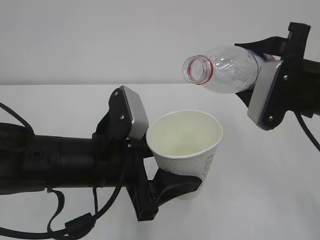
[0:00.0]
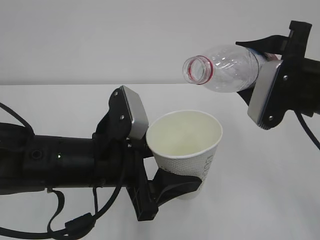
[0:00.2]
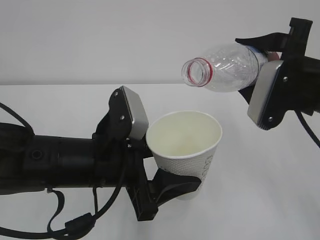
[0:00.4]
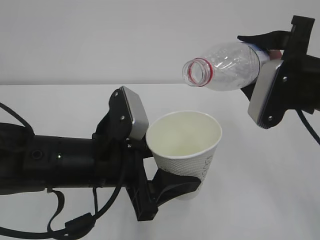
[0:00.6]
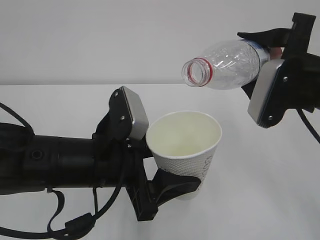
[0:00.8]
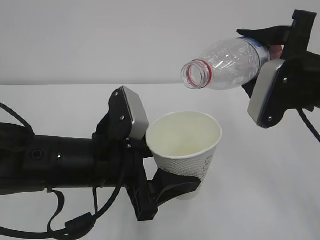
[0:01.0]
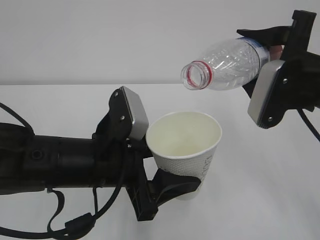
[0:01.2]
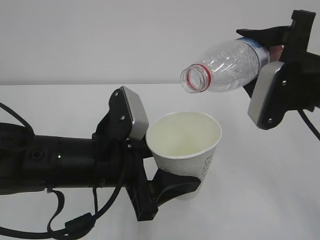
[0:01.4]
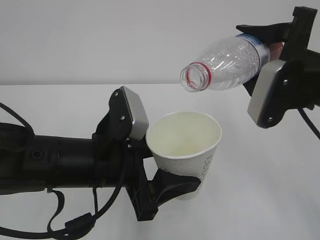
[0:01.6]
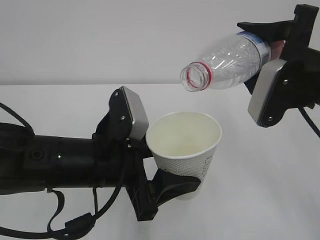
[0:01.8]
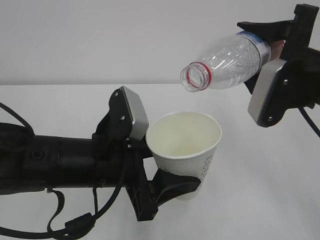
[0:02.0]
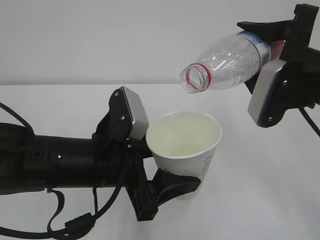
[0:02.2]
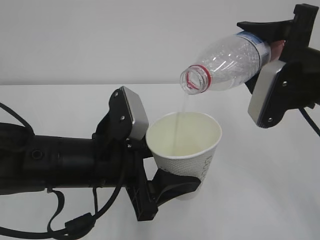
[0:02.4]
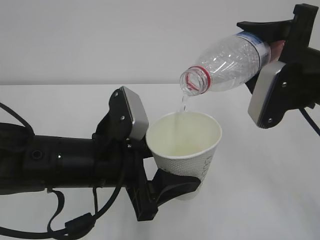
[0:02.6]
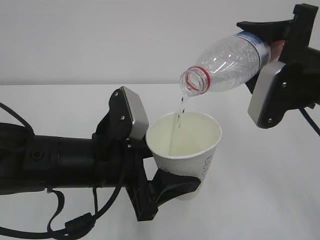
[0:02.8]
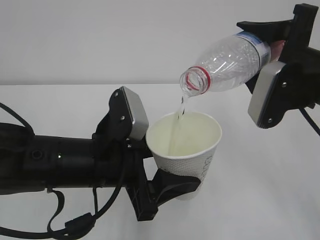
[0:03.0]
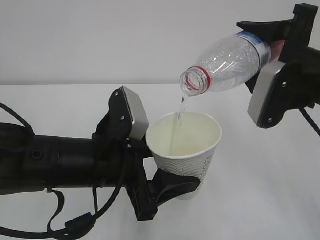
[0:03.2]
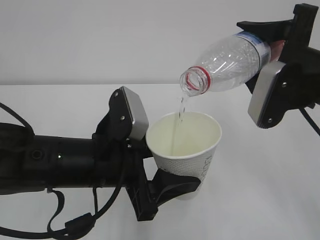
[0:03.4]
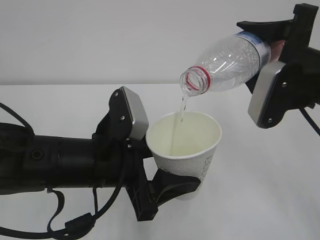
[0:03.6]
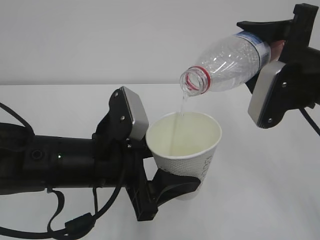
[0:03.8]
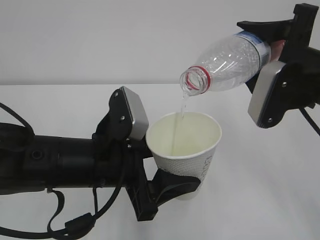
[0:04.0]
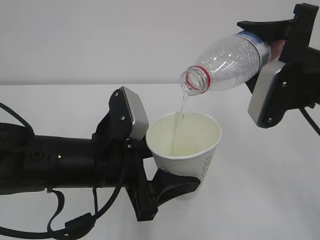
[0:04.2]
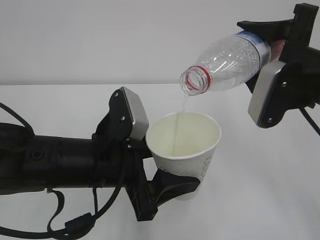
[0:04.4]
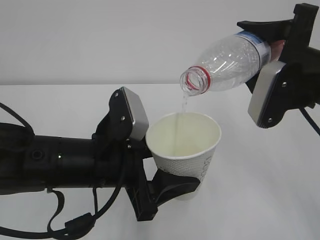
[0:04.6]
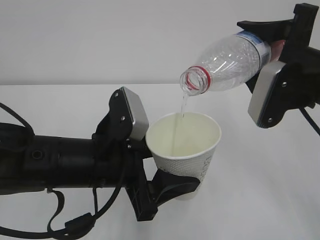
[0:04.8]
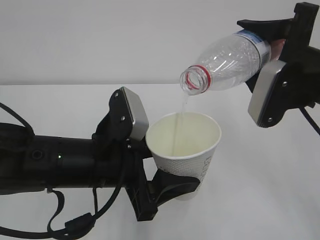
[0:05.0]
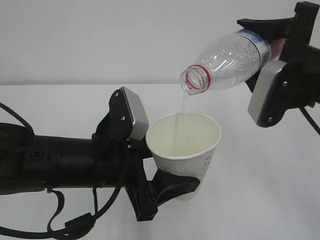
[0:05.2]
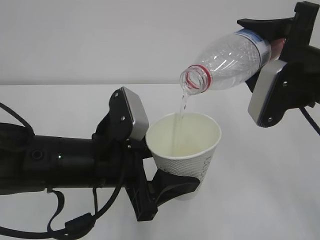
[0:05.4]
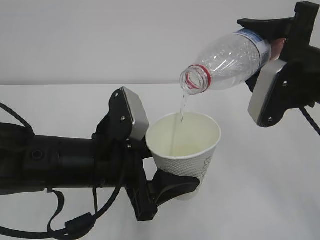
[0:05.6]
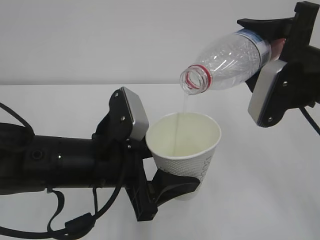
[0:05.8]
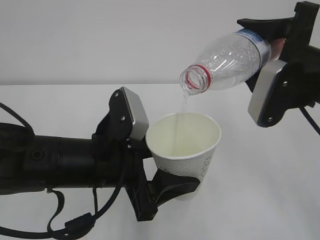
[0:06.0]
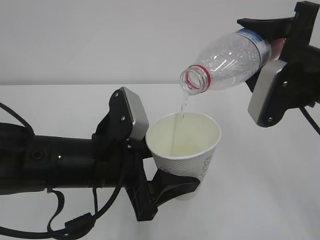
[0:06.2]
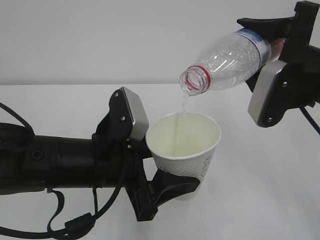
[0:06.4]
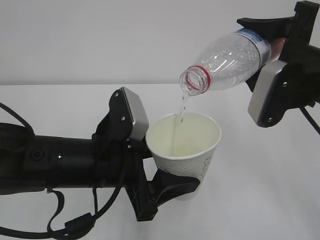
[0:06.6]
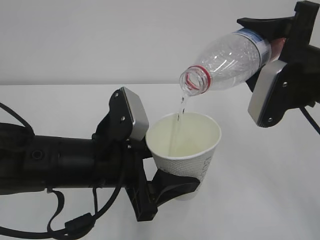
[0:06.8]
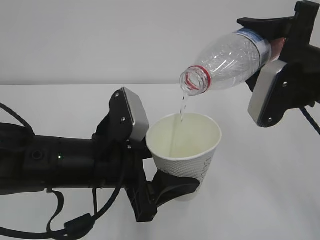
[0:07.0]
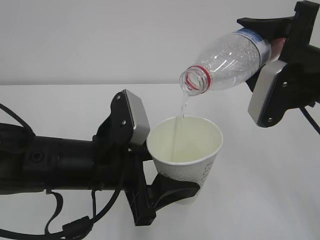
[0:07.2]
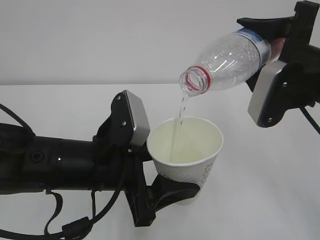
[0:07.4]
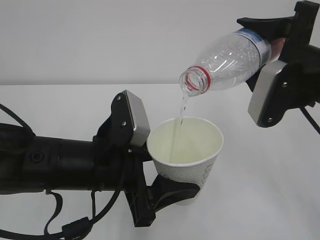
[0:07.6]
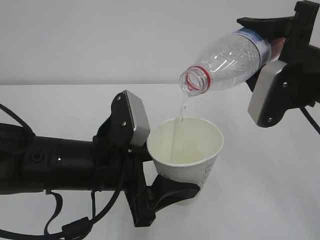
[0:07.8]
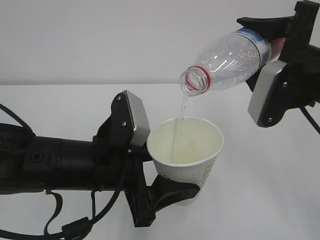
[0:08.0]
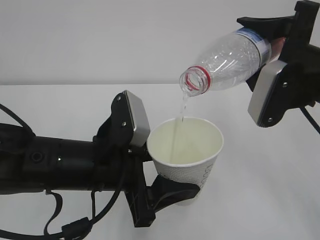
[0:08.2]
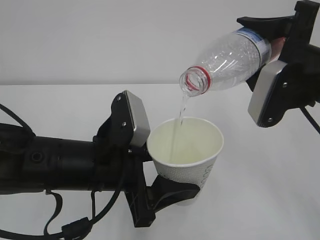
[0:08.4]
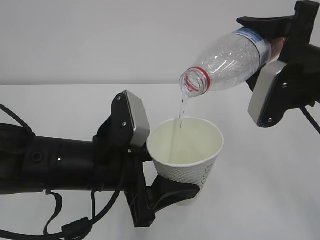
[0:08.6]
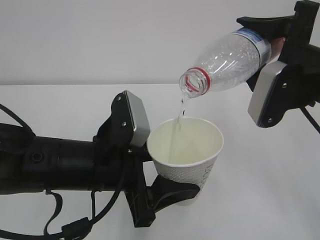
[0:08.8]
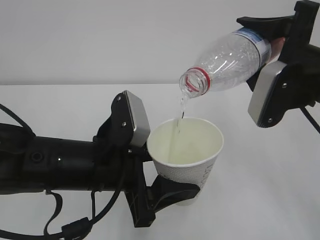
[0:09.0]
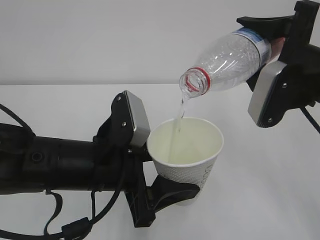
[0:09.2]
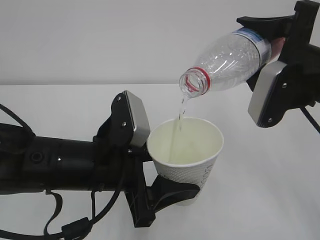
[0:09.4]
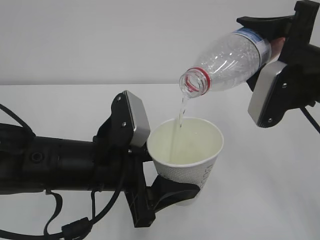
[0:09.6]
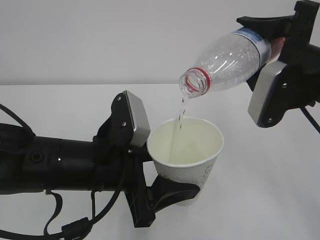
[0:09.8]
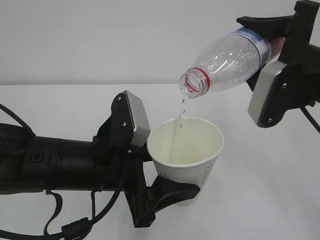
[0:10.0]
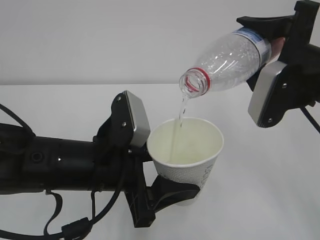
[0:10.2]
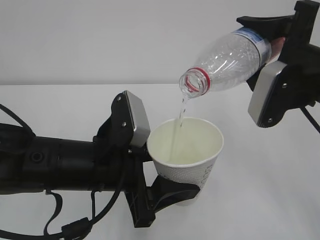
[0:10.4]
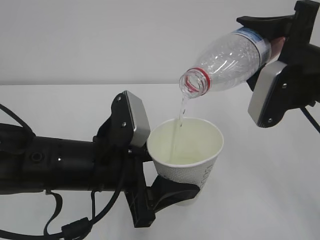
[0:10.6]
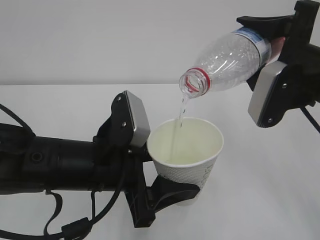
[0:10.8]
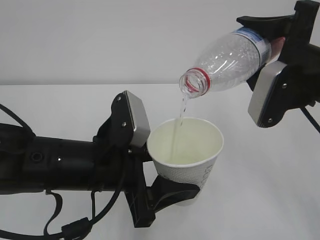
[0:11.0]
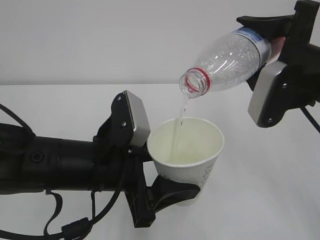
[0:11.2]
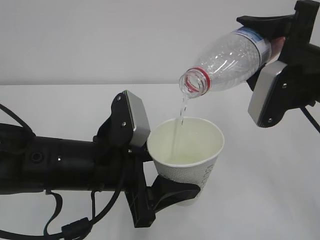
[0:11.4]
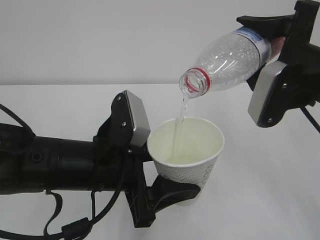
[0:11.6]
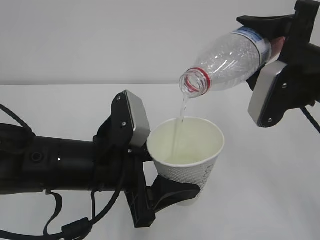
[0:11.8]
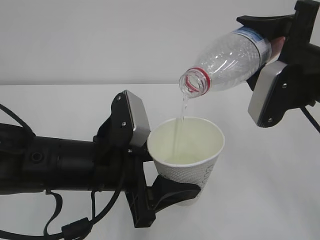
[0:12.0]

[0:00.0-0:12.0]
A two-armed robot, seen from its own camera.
0:00.0 to 0:01.6: The grippers make only small movements.
0:01.6 to 0:06.0: The two grippers keep their place.
0:06.0 to 0:12.0: Both grippers stay put.

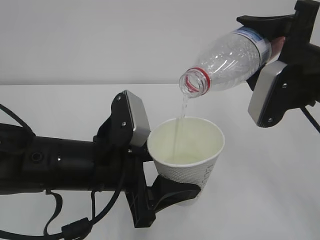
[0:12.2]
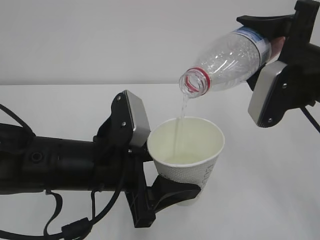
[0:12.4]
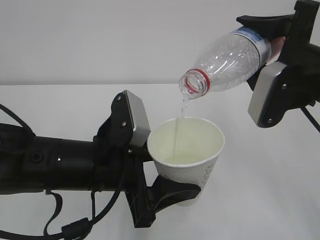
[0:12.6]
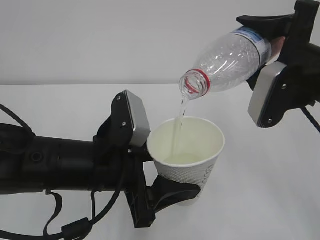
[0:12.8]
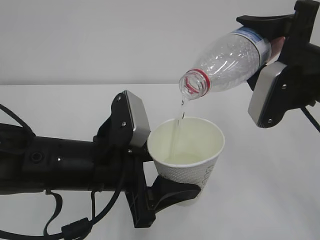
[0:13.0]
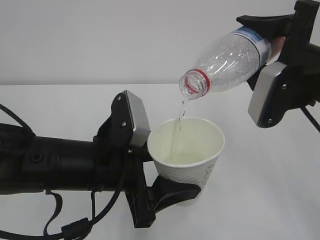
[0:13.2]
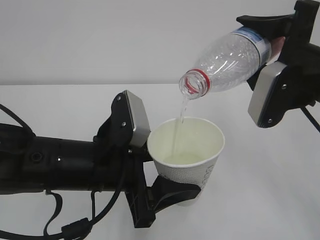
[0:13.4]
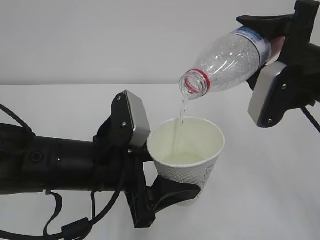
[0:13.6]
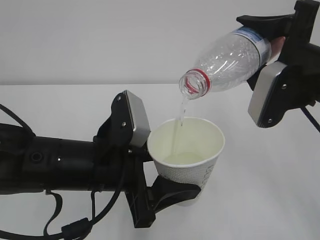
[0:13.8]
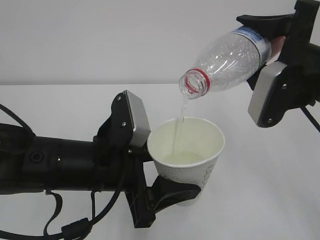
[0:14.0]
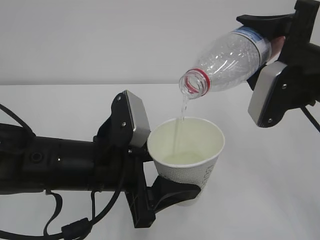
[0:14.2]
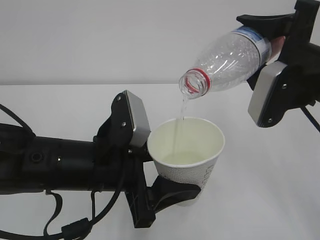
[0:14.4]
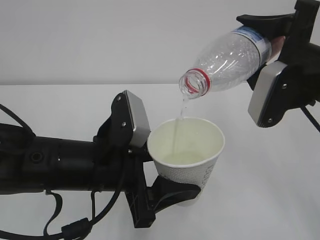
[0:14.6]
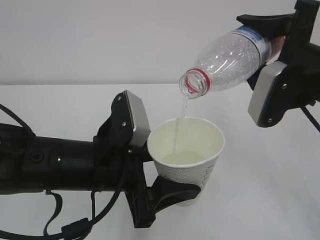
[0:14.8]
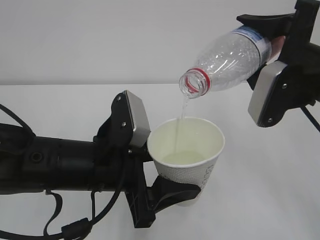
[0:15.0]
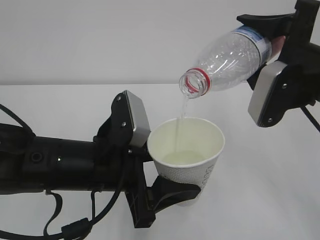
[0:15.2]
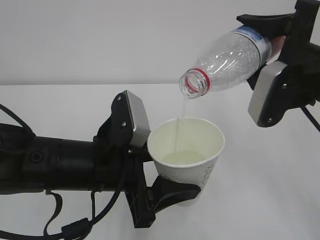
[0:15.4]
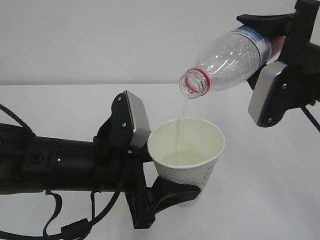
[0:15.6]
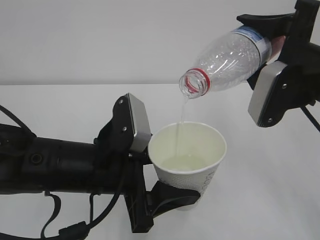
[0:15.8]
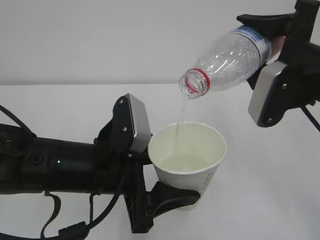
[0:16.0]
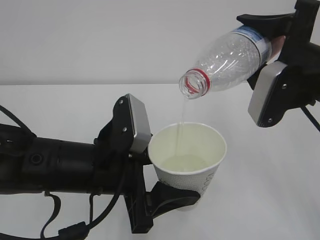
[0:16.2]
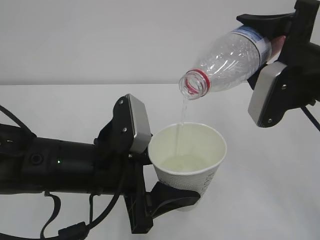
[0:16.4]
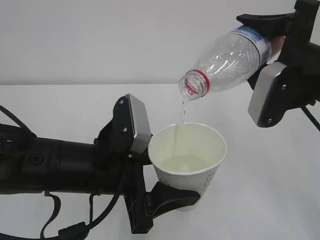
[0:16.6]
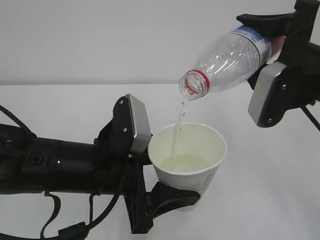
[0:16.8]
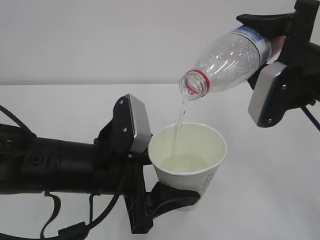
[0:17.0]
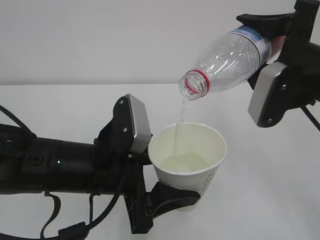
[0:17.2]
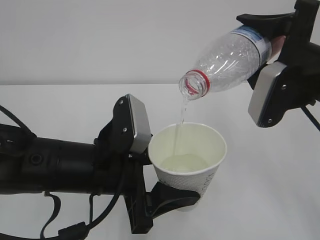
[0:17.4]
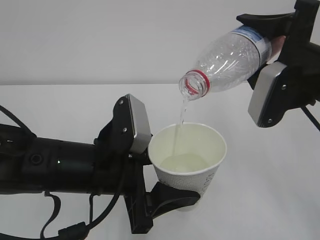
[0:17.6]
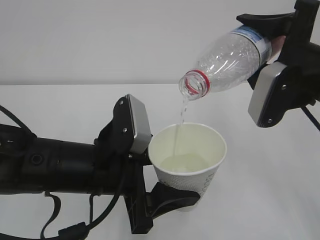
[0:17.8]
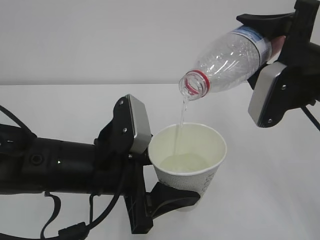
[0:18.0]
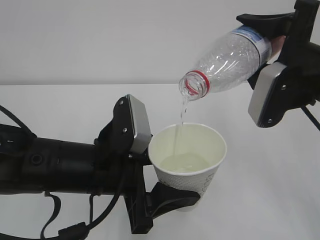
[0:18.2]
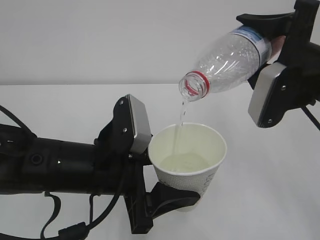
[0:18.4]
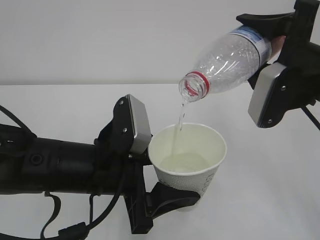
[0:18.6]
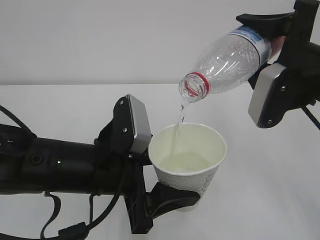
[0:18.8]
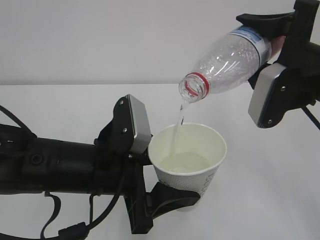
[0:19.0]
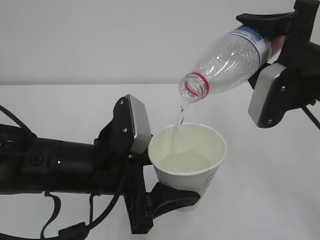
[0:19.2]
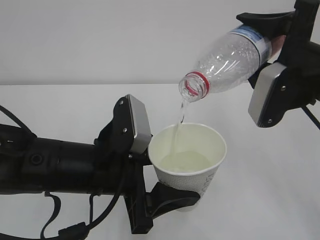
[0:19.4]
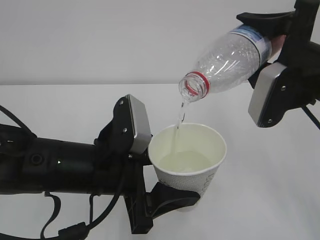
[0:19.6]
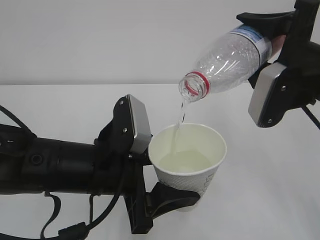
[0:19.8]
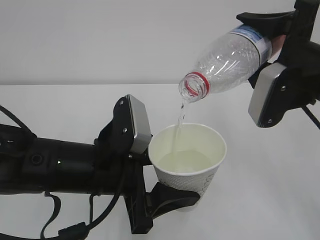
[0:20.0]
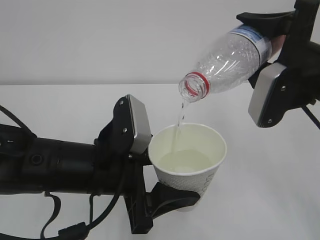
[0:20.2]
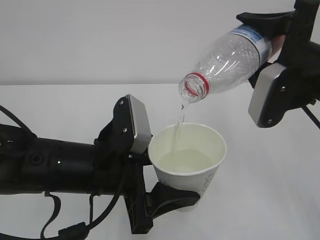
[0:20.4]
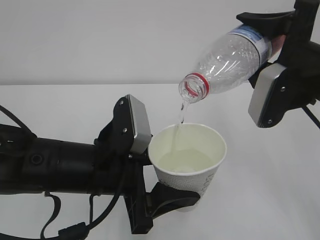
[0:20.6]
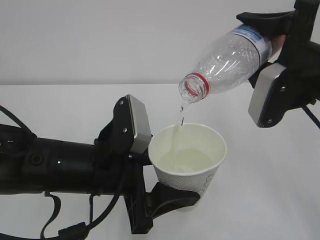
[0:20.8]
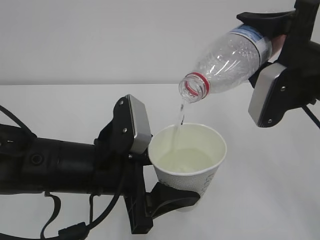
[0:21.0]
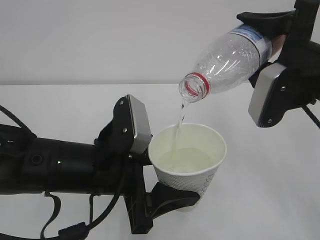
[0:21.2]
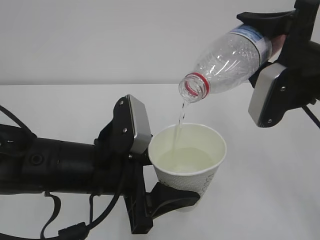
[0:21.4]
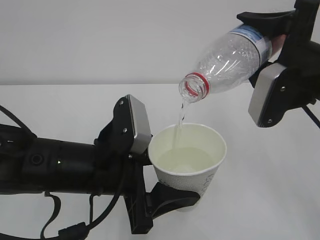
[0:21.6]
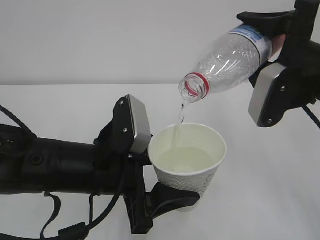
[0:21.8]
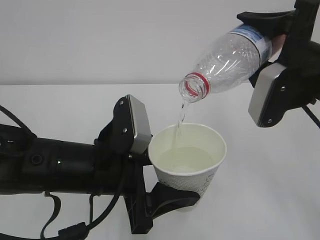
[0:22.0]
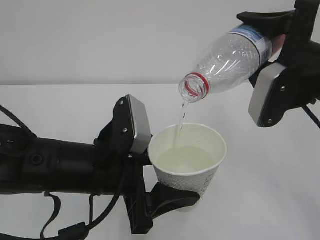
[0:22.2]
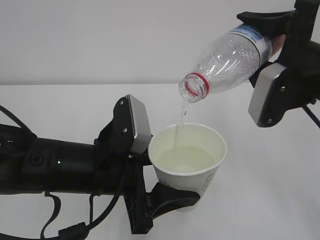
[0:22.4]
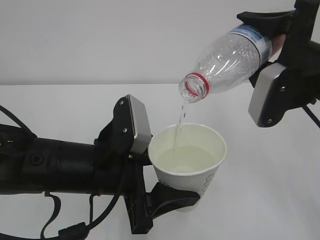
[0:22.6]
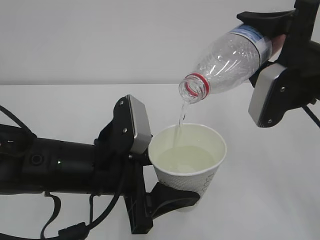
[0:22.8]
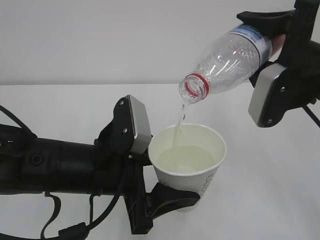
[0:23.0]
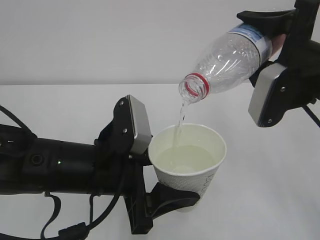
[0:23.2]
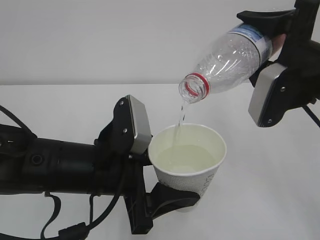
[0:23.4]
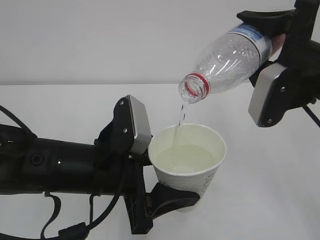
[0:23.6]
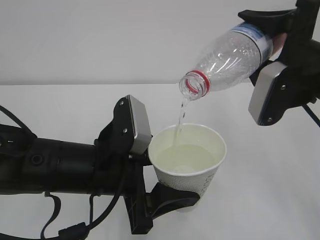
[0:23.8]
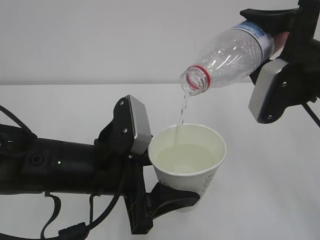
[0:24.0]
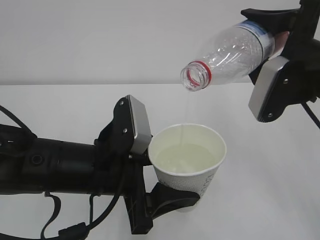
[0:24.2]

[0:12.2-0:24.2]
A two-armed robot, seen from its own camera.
0:12.2 to 0:22.6: The two grippers keep their place.
0:22.6 to 0:24.2: Both grippers stay put.
